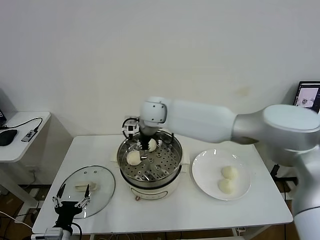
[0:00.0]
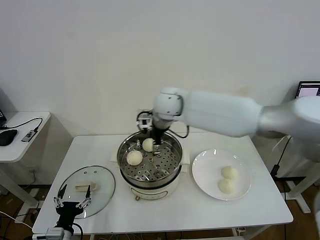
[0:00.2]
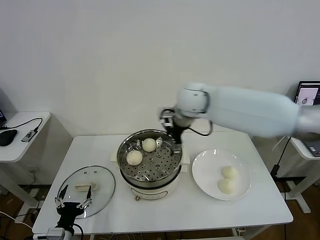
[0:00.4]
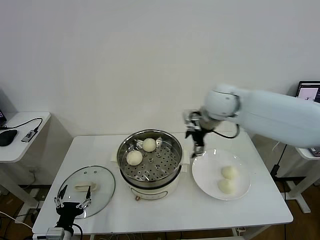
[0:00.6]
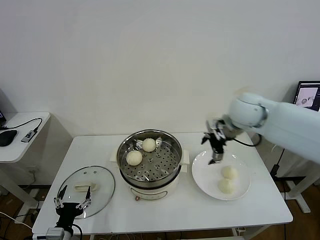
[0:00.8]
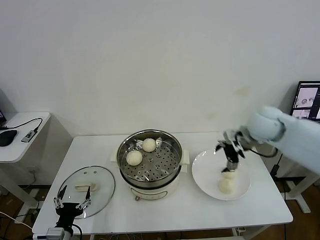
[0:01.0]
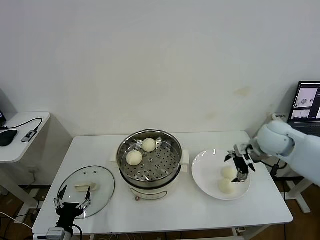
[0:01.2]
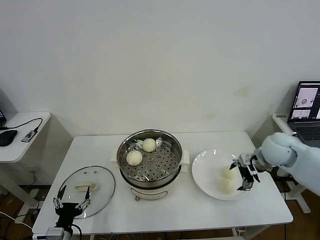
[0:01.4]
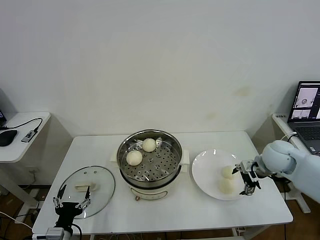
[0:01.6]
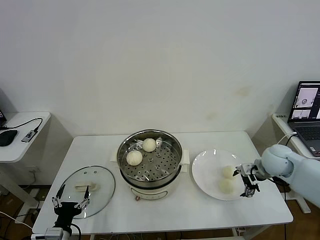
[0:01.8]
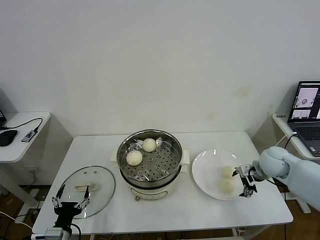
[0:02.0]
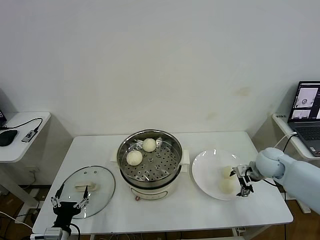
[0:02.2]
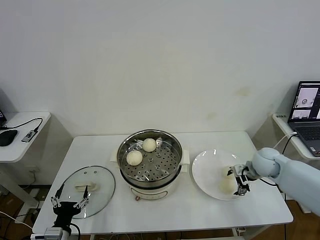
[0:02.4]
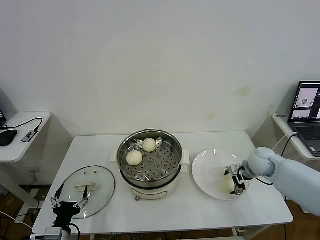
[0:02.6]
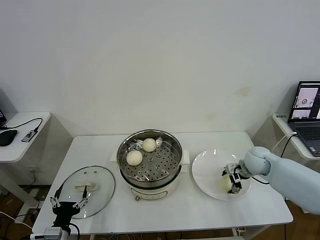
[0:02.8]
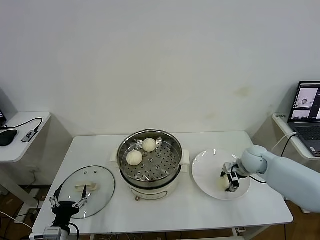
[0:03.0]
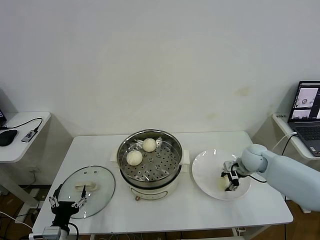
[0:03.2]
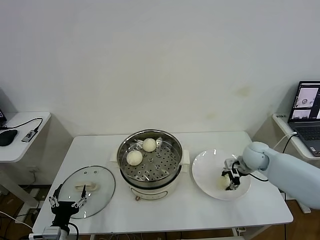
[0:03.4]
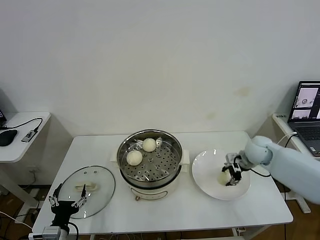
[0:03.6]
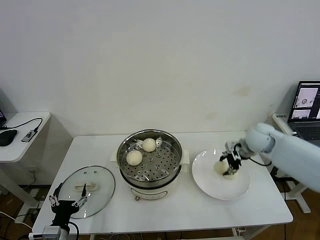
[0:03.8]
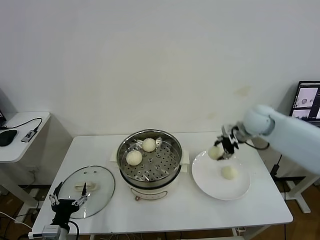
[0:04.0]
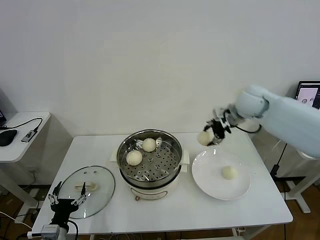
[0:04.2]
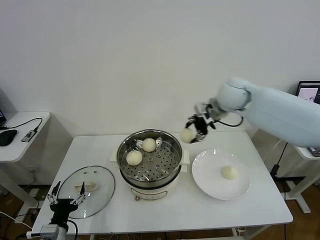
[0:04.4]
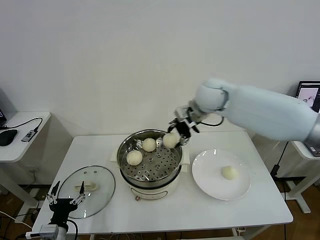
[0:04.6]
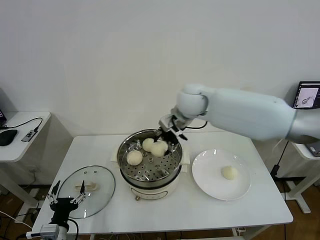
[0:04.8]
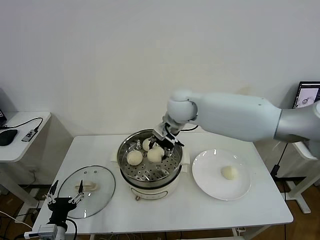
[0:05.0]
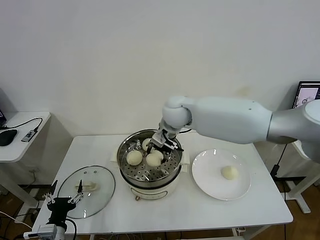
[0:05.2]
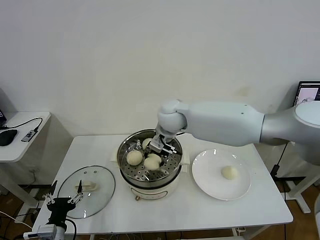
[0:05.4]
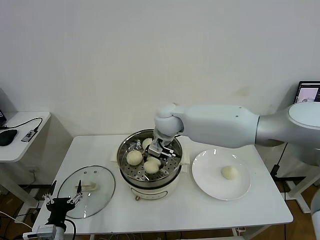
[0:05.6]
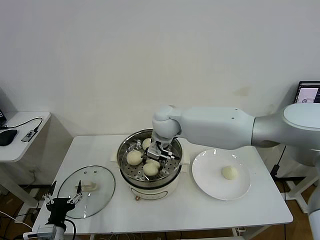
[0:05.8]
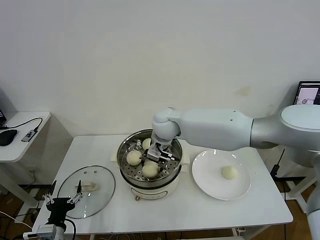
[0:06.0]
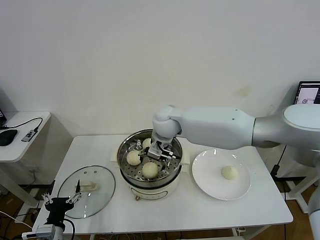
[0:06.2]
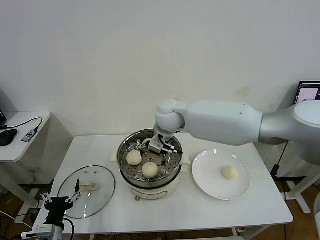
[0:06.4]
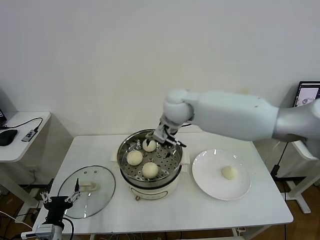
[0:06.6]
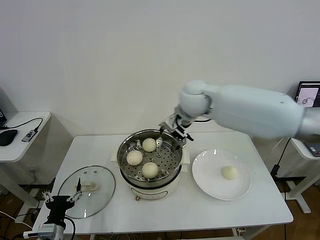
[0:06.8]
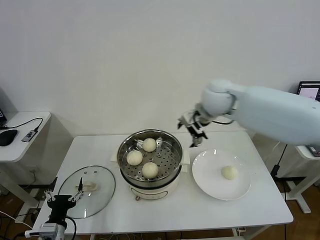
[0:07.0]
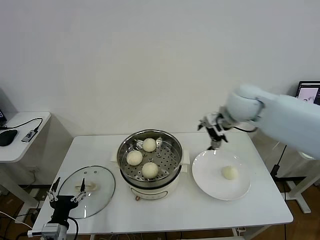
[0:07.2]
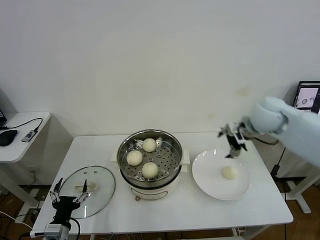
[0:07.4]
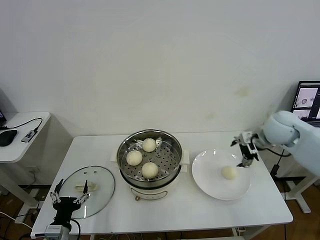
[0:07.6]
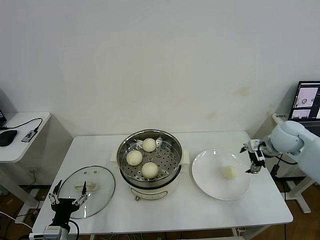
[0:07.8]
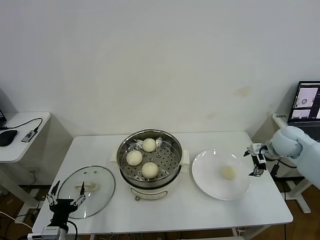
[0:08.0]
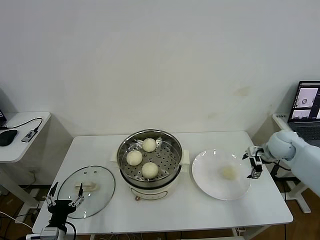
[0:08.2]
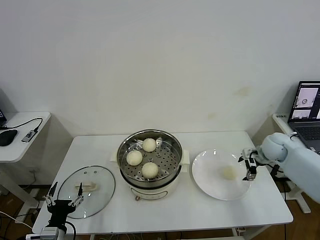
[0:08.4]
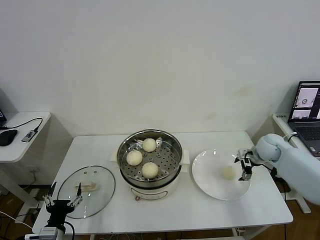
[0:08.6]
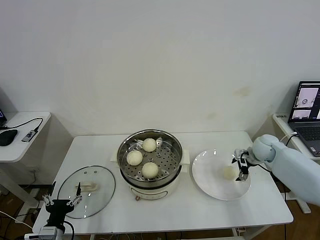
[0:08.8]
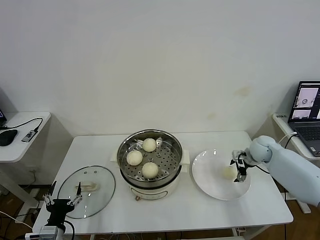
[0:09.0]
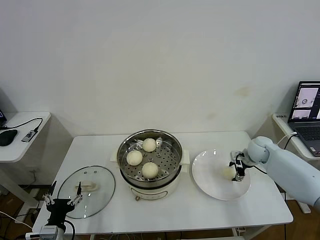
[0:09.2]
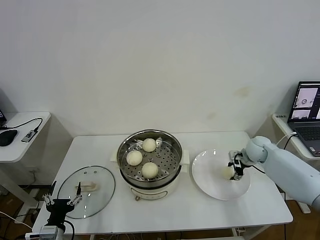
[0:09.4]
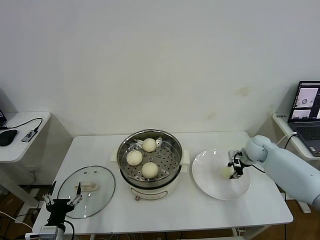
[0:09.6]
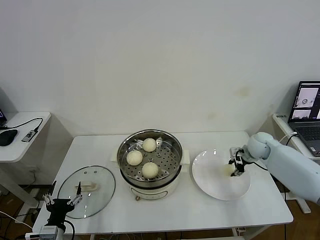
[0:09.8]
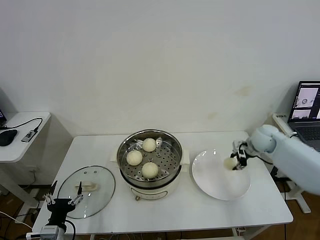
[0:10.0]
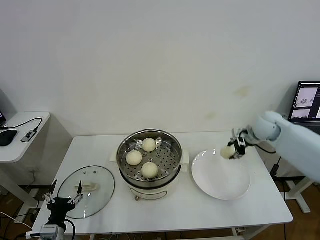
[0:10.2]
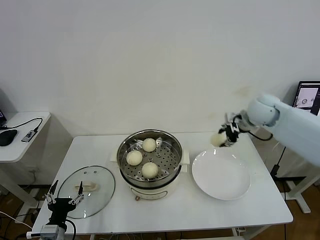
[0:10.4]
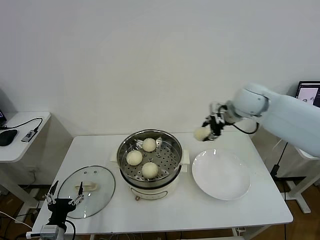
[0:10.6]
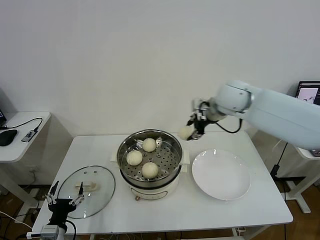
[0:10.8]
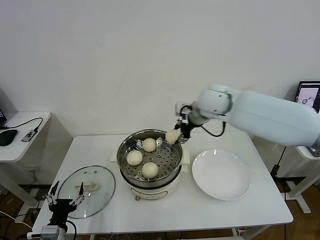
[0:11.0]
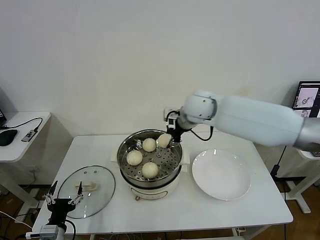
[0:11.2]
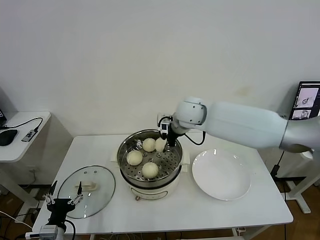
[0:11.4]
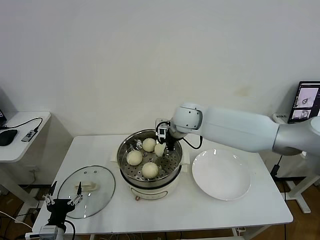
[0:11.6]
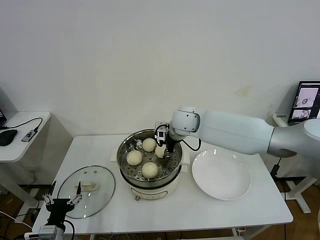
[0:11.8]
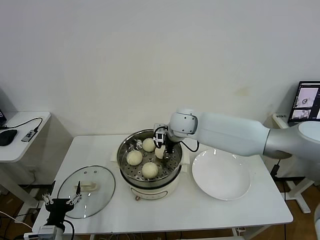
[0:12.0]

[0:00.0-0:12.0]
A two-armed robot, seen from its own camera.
Task of the whole recording: take steamed baozi put them in steamer then cover it.
Step, 0:00.2 to 0:03.4: Grasp the baozi in the plate with right gripper.
Step, 0:03.6 to 0:06.4: Place the baozi on the steamer with right gripper.
Step, 0:06.6 to 0:09.8: Grasp the baozi in the plate with right gripper.
0:00.0 to 0:01.6: The right gripper goes about 40 cm to the right.
0:01.6 to 0:03.0: The right gripper shifts about 5 cm downward, and closes.
0:03.0 to 0:04.4: The right gripper shifts approximately 30 cm upward and to the left.
0:04.4 to 0:06.0: The right gripper travels to the left and downward by roughly 20 cm, and opens its fingers.
0:06.0 to 0:07.6: The right gripper travels to the right by some 35 cm, and opens up.
0:07.6 to 0:09.0: The right gripper travels downward by some 15 cm.
0:09.0 to 0:10.4: The right gripper goes some 20 cm upward and to the left, and closes.
0:10.4 to 0:12.0: The right gripper shifts about 25 cm to the left.

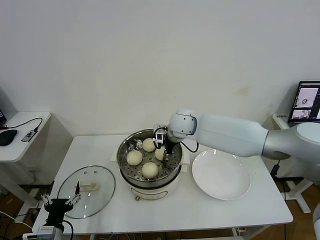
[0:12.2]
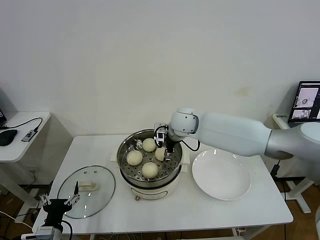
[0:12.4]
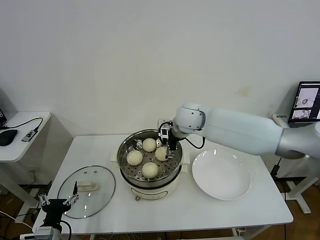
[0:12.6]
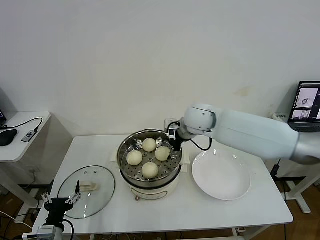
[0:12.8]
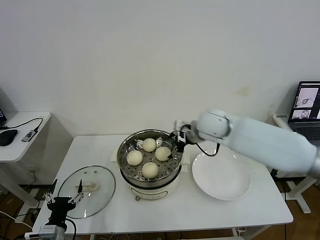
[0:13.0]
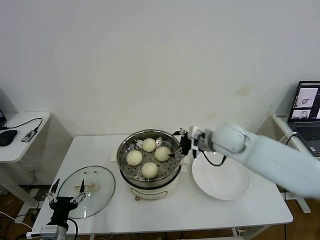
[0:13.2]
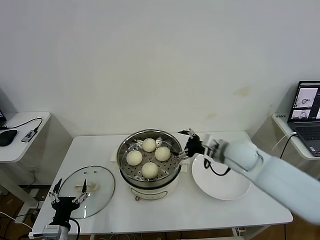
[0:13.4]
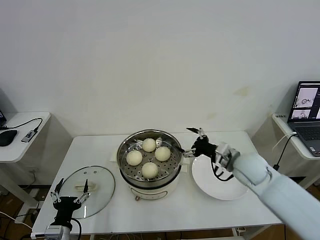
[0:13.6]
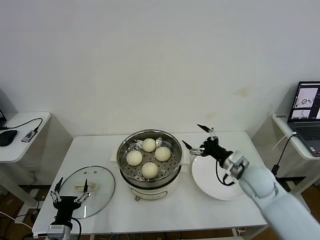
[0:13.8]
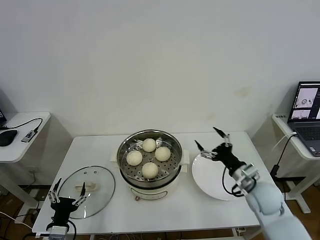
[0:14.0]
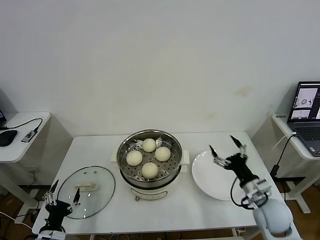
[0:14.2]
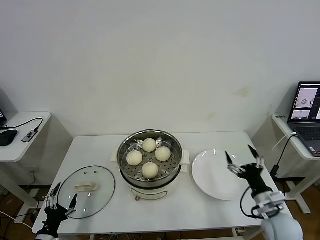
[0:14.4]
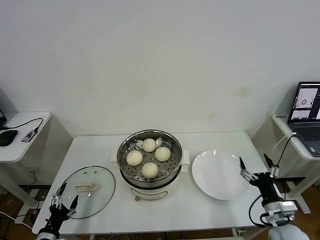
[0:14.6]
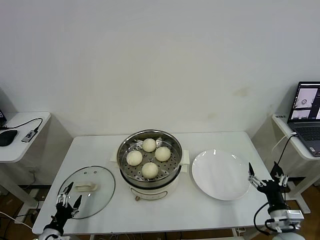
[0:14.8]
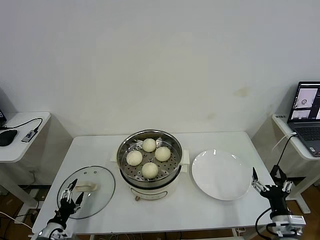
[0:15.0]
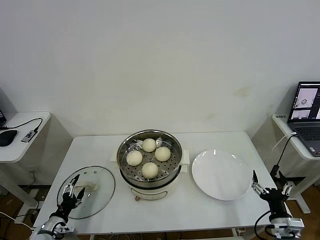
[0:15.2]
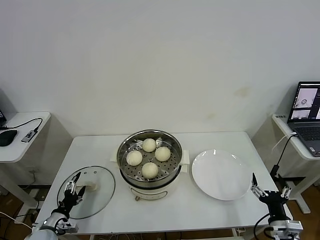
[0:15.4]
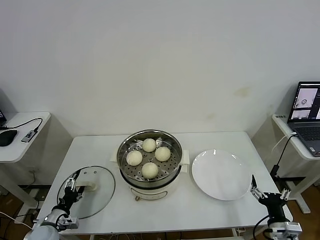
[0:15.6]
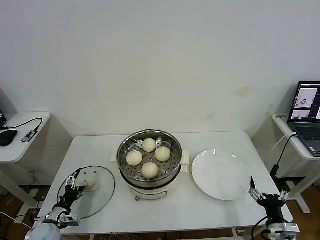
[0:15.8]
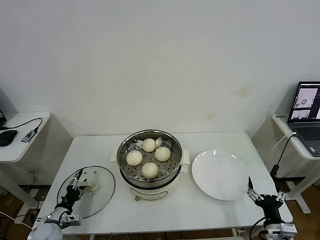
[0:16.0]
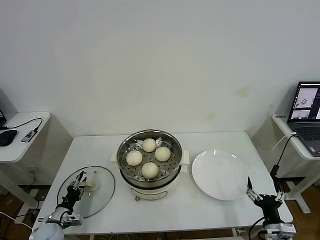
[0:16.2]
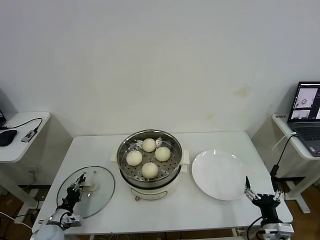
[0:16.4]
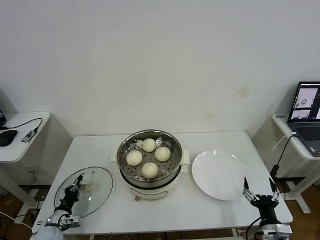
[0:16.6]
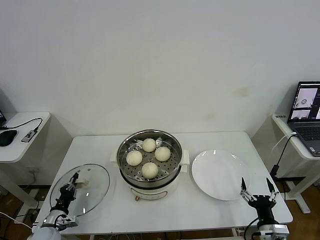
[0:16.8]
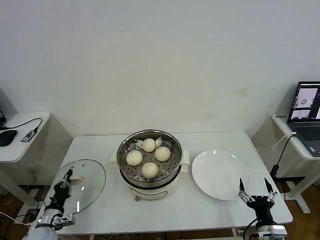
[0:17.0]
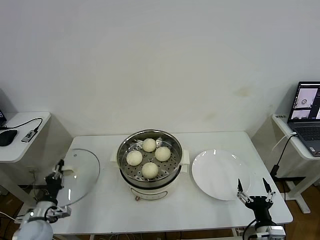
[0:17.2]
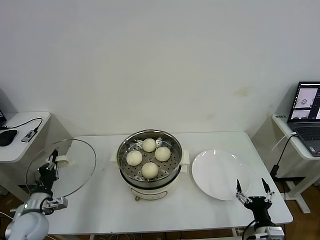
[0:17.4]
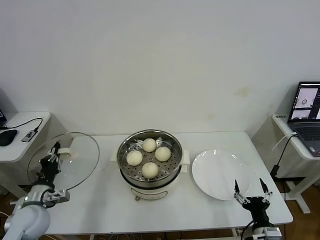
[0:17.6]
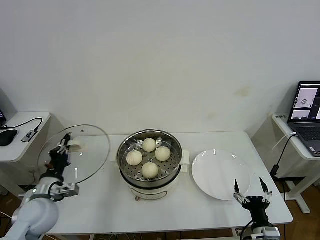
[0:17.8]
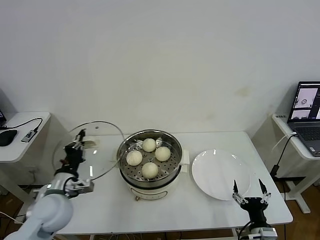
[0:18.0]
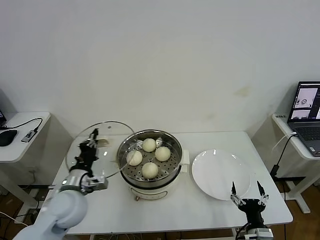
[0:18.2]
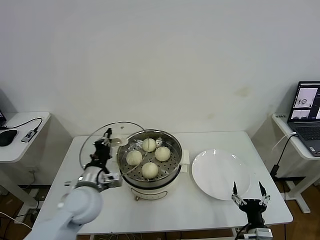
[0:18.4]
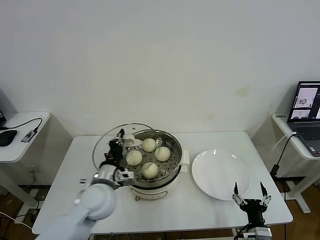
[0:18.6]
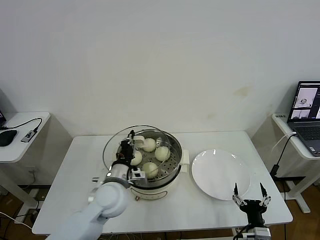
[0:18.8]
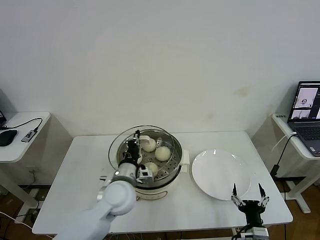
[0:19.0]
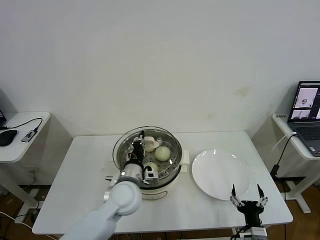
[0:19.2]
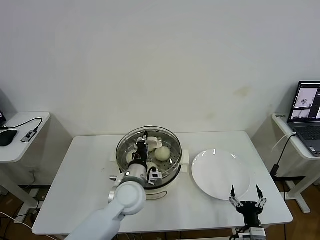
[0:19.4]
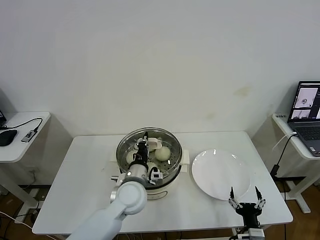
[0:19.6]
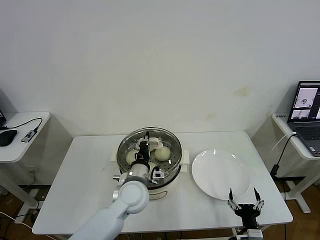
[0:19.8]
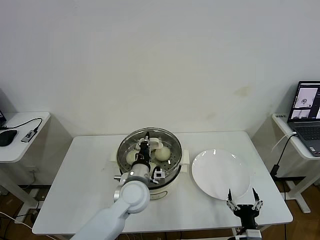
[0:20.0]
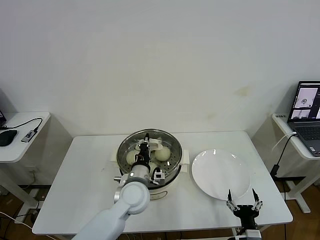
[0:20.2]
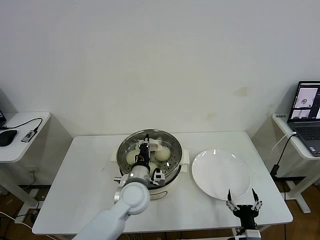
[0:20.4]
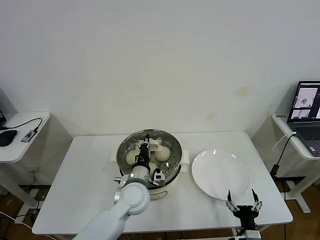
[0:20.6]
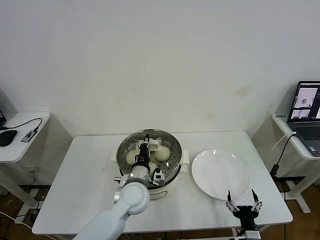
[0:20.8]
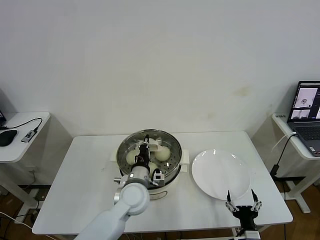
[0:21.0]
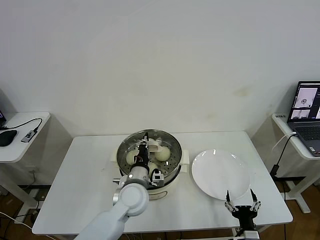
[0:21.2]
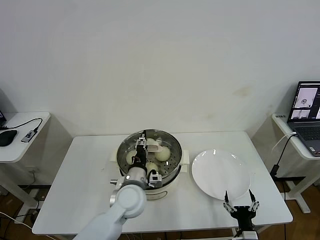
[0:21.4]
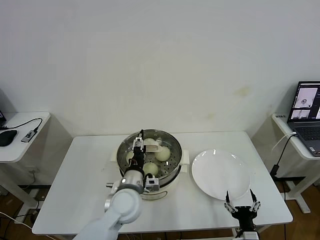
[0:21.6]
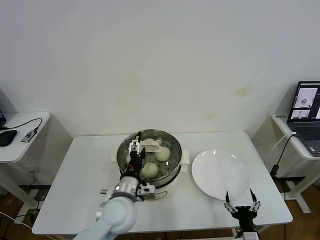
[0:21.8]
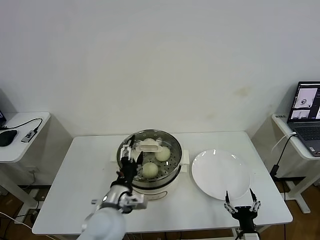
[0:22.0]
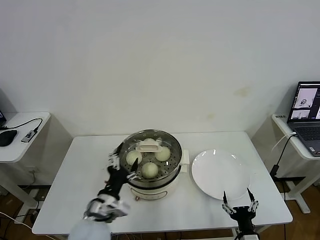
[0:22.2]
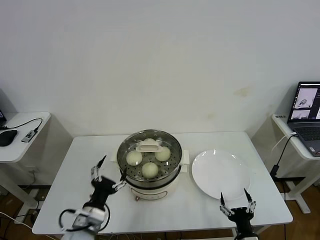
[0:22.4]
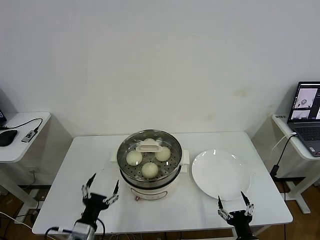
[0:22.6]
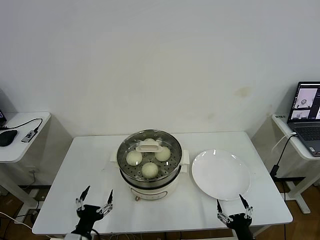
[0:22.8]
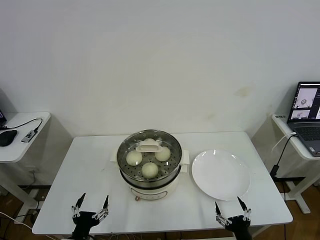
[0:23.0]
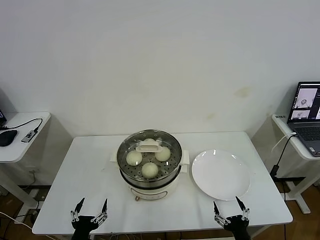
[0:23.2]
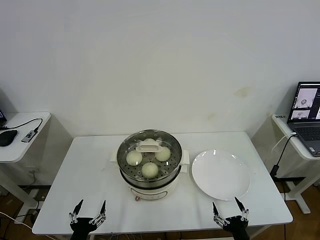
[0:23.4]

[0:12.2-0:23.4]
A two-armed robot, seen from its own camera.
Task of the whole recording: take steamed baozi put them in steamer then cover it.
Step, 0:12.8 to 0:16.8: Grasp the pot lid with left gripper.
Step, 0:17.0 to 0:22.0: Place the pot lid on the steamer with left gripper.
0:12.2 to 0:13.8: The right gripper heads to the right, backward and downward, covering about 30 cm, and opens its fingers.
0:13.8 to 0:15.4: The left gripper heads to the left, downward and forward, covering approximately 15 cm; the right gripper travels backward and downward by approximately 20 cm.
0:15.4 to 0:17.0: The left gripper closes.
0:17.0 to 0:18.6: The left gripper travels to the right and upward by roughly 30 cm.
0:18.6 to 0:20.2: The left gripper moves to the right, some 10 cm.
0:20.2 to 0:21.8: The left gripper shifts by some 5 cm, and opens its fingers.
0:21.8 to 0:23.4: The left gripper heads backward, to the left and downward, covering some 25 cm.
